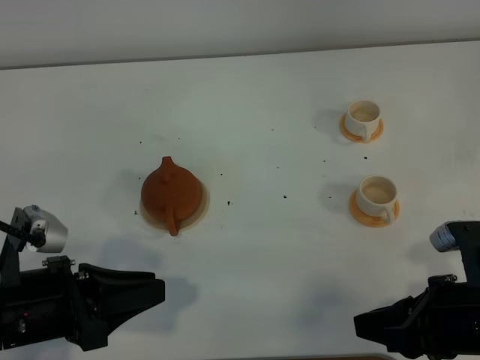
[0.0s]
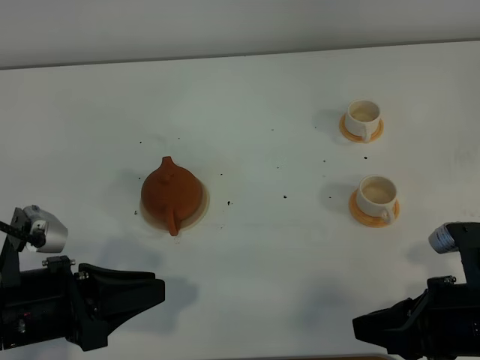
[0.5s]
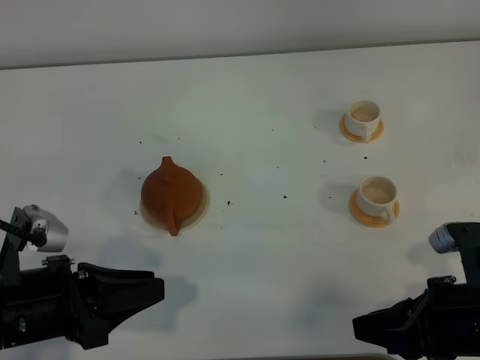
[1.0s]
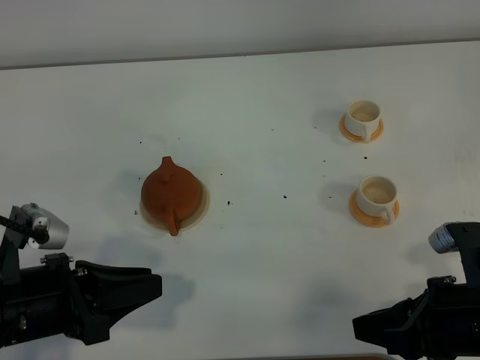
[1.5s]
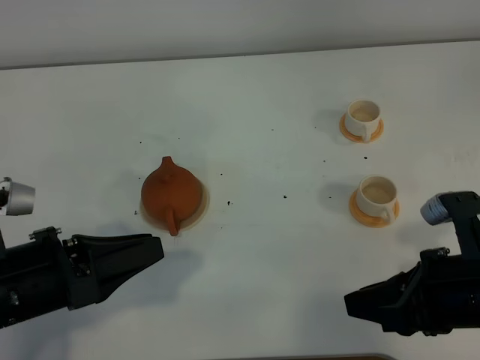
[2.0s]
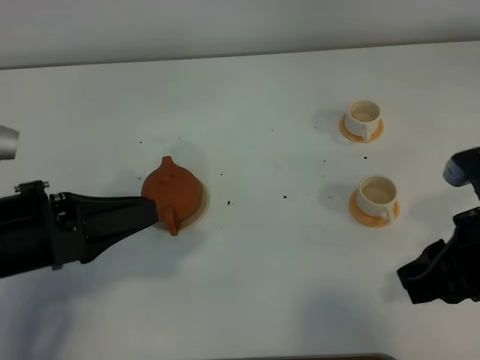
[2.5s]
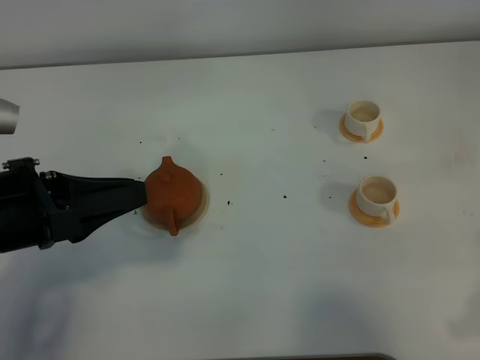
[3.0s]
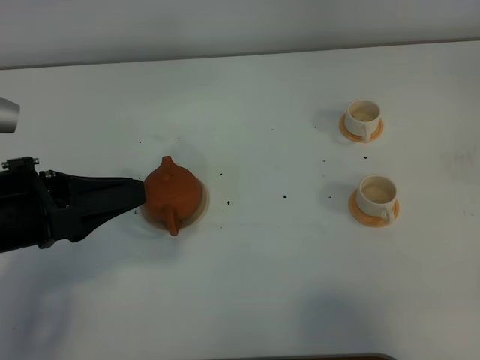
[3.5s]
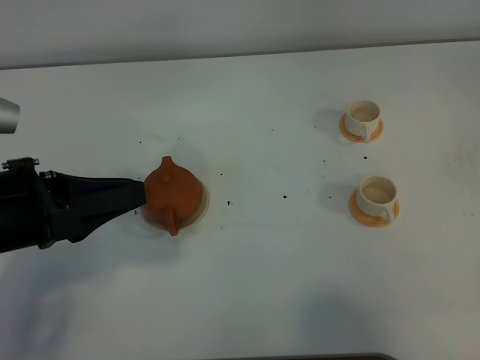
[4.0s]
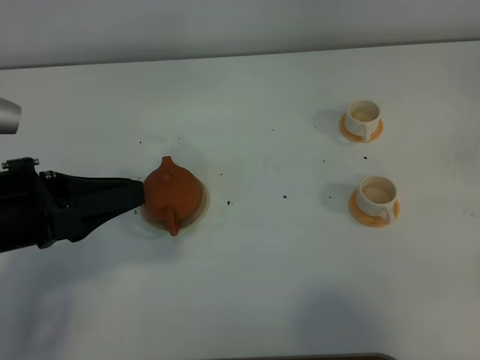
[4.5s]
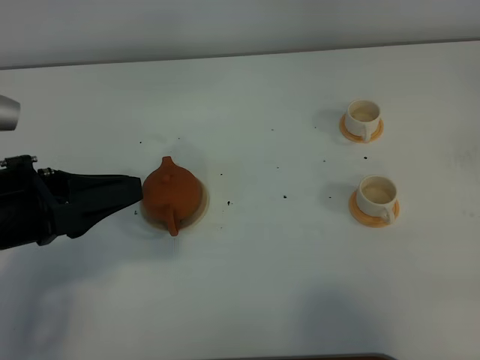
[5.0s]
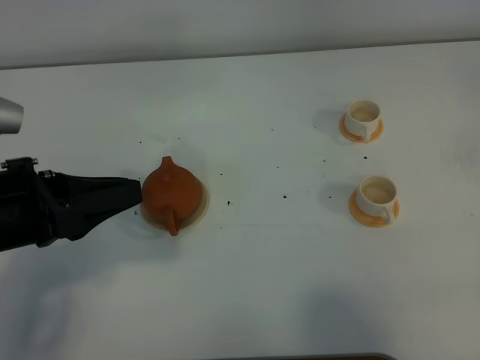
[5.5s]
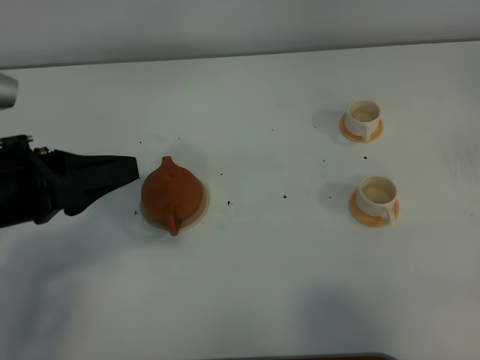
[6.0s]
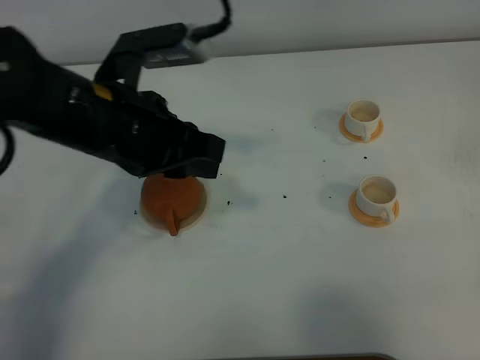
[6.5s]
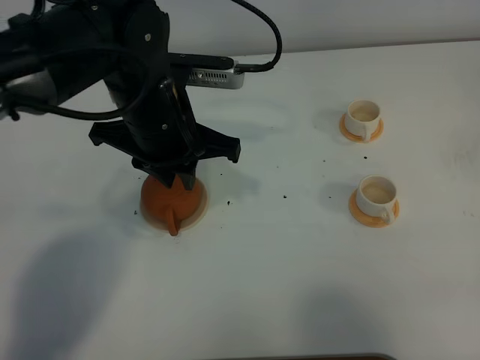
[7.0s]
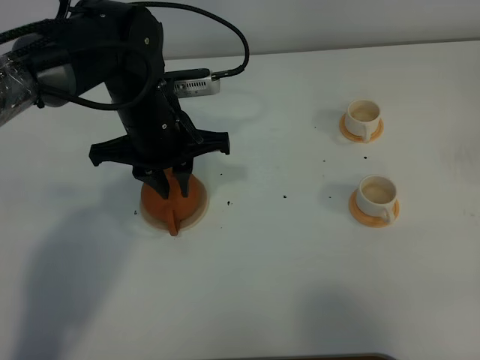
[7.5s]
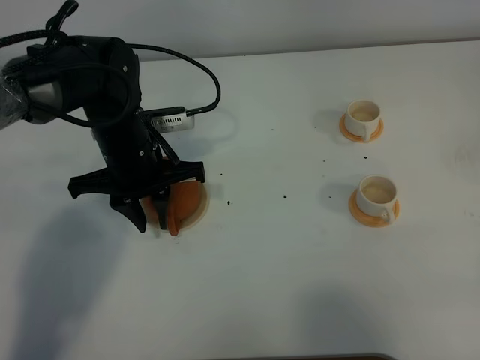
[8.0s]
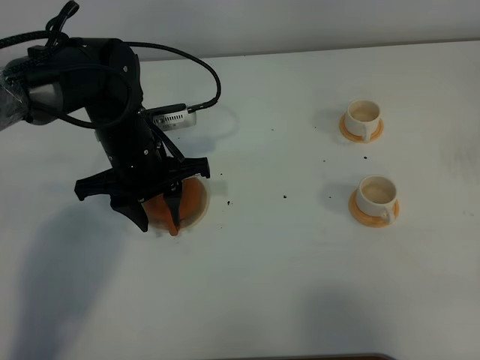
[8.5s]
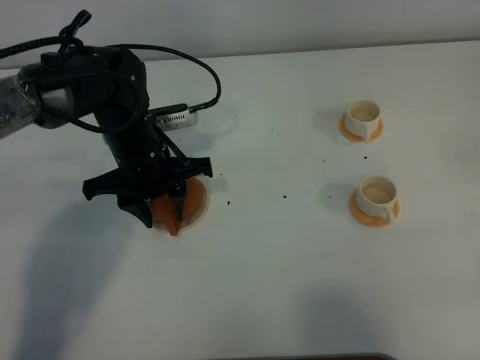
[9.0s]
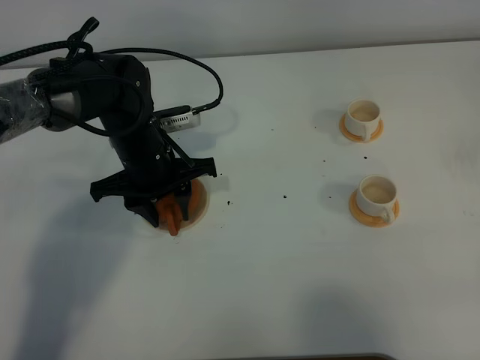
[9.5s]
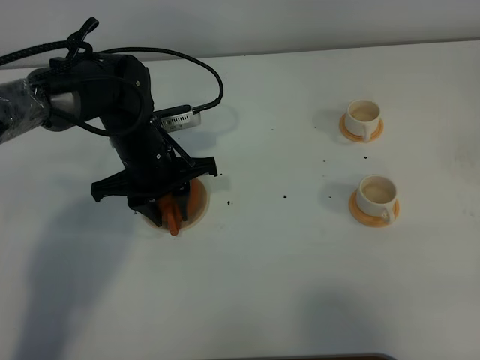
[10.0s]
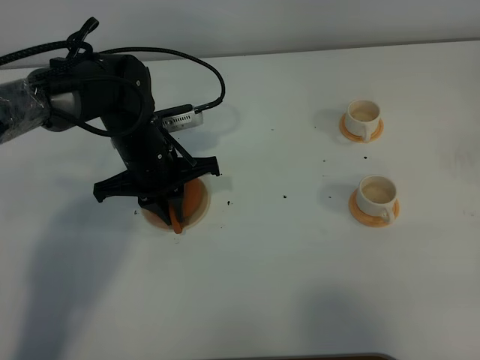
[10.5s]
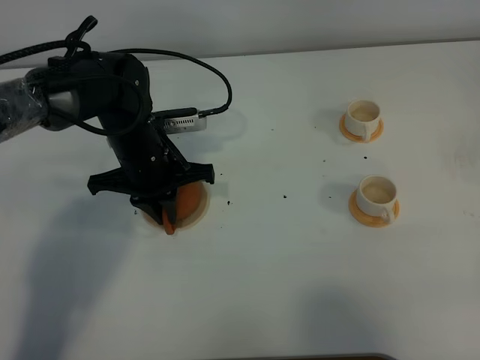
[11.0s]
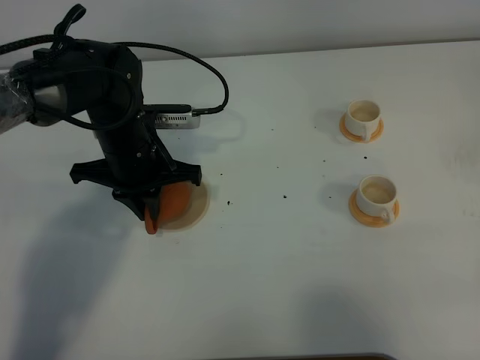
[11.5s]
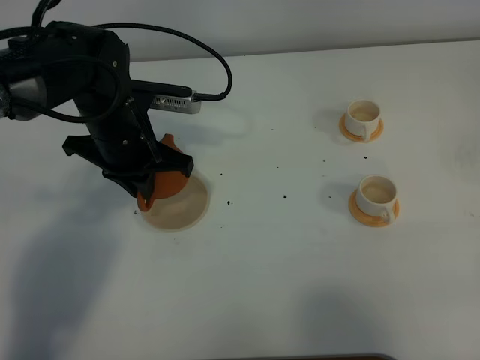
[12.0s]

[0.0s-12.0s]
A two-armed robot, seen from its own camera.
Task of the whole recording: grasp the brown teapot and pour the tea into the two white teacups one by one, put the brown teapot back in its original place.
Step, 0.0s to 11.5s: Pick up the teapot with the left gripper.
0.0s to 2.0s: The grippers stay close to where they were, moving slightly.
2.0s to 4.0s: The right gripper heads to the right, backward and upward, covering approximately 15 cm, and closes up, while the left gripper moves upward, approximately 5 cm.
6.0s to 8.0s: The left gripper goes approximately 20 cm forward, downward and to the right.
8.0s to 10.0s: There are only small adjustments of the grippers.
10.0s to 12.0s: The left gripper moves upward, roughly 5 cm, and closes.

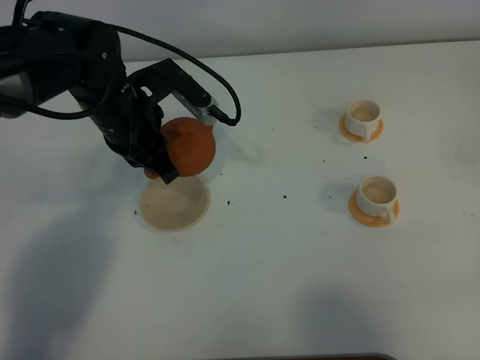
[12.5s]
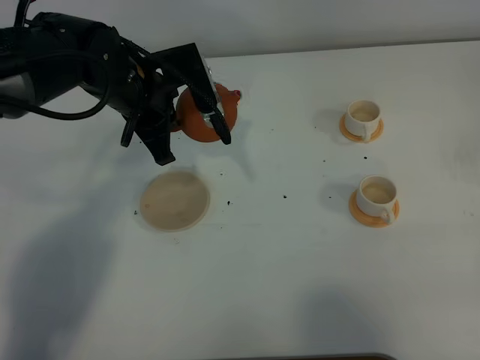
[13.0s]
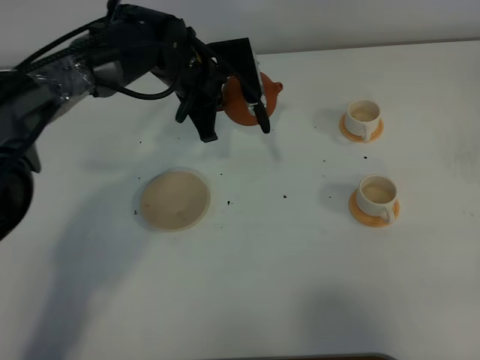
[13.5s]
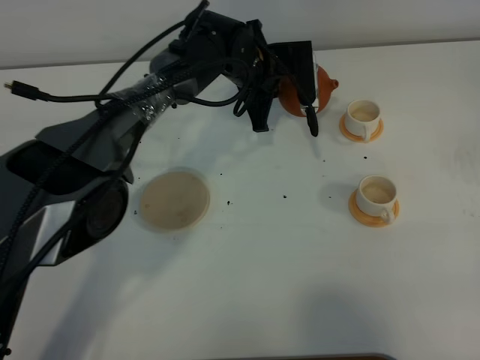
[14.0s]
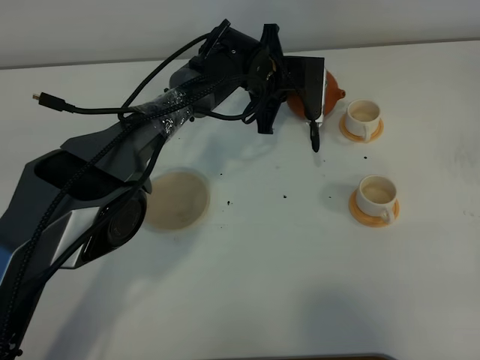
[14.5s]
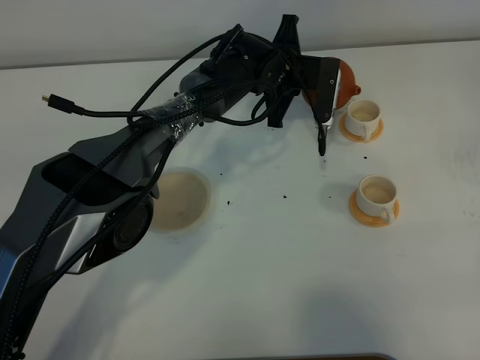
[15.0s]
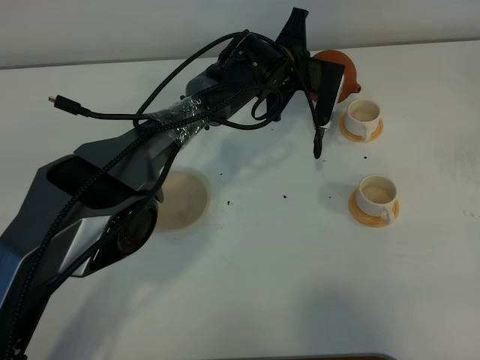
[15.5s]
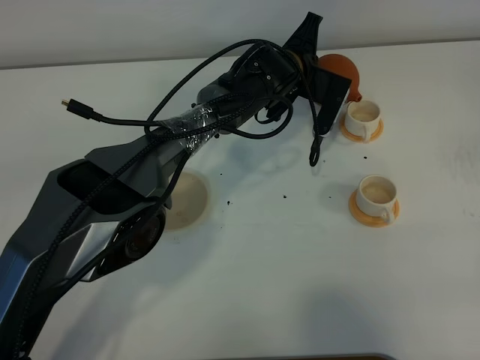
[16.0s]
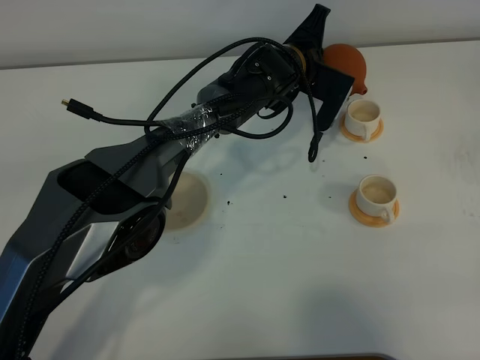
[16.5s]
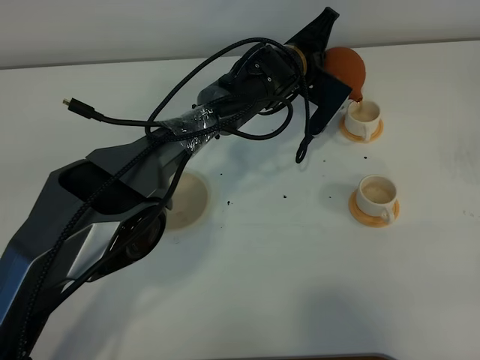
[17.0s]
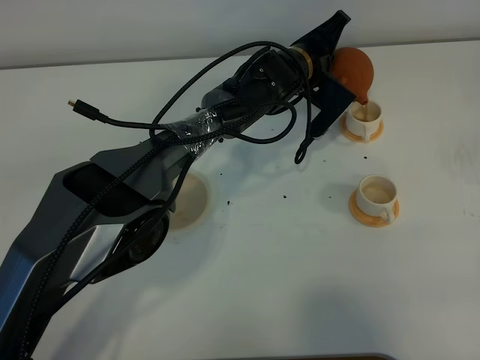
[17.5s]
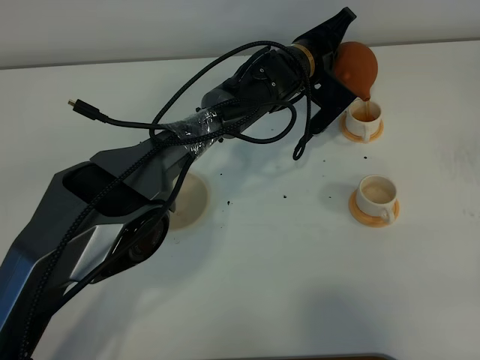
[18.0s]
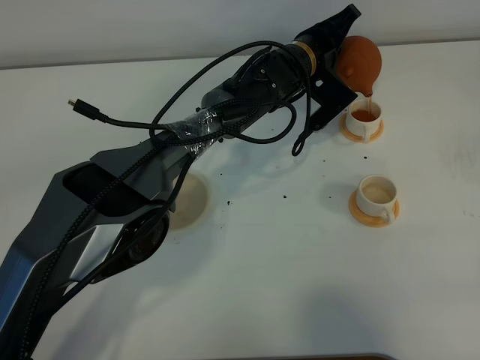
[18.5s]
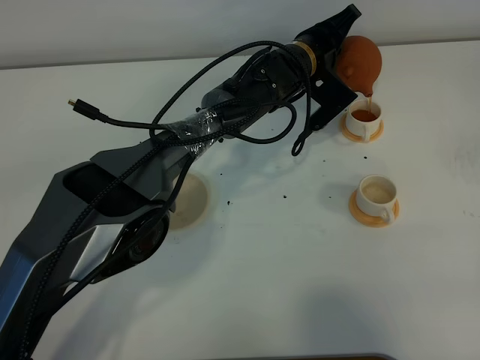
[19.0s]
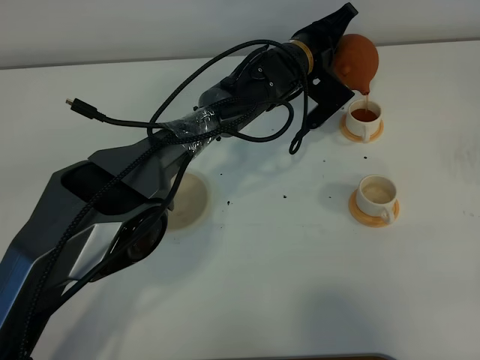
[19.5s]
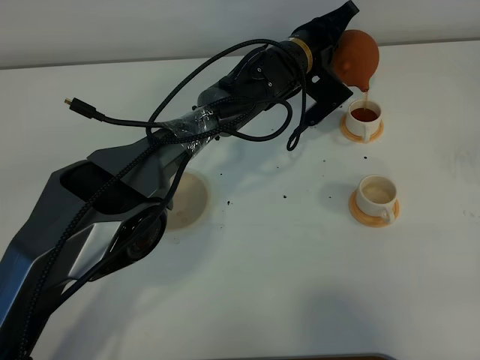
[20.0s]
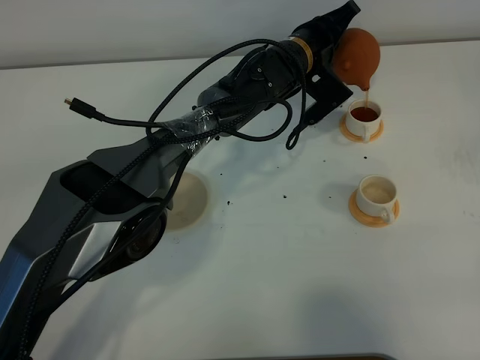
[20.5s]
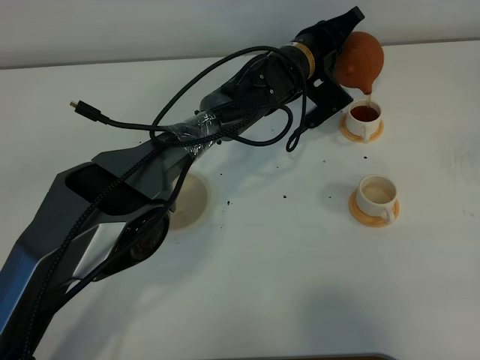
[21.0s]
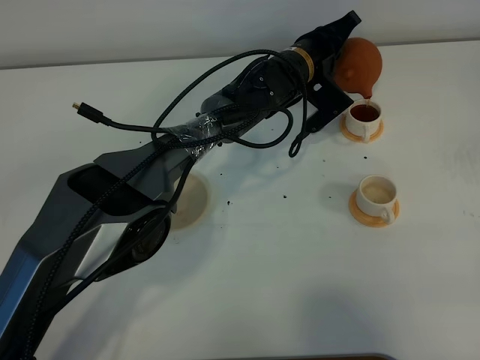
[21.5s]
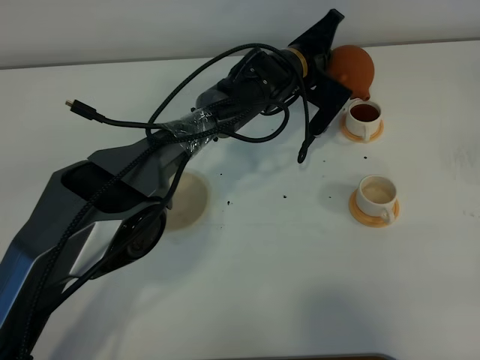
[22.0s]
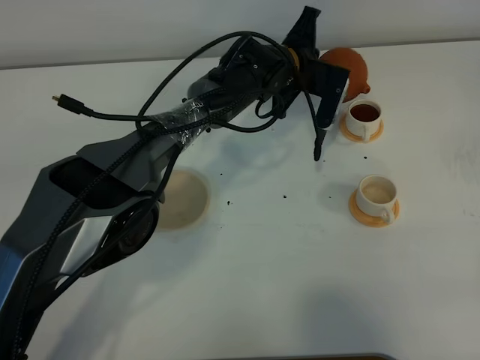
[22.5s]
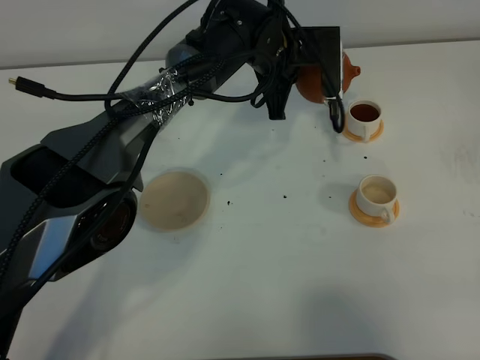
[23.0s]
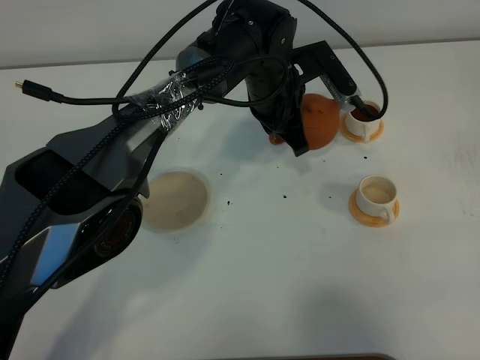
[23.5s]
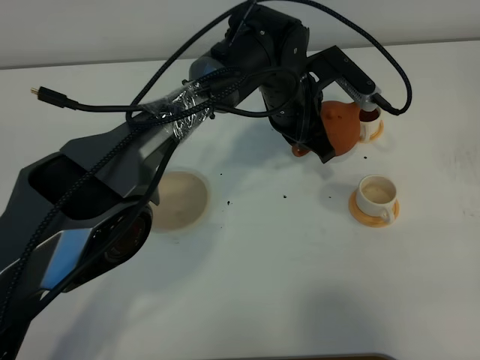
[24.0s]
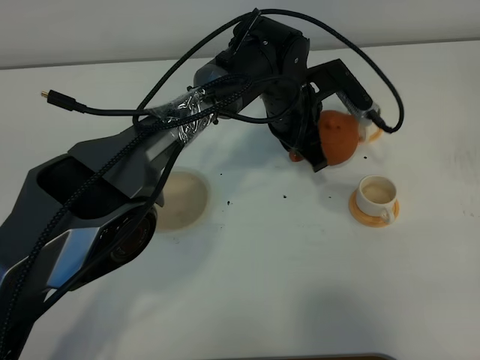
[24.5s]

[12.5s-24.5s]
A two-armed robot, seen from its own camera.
Task of the whole recording: grasp the brown teapot and pour the tea into the two white teacups one by one, put the brown teapot back in its original place.
12.5s to 14.5s: The left gripper is displaced to the right, forward and downward by approximately 20 cm.
18.5s to 20.5s: Neither gripper changes place.
22.5s to 24.5s: The left gripper heads backward, covering about 5 cm.

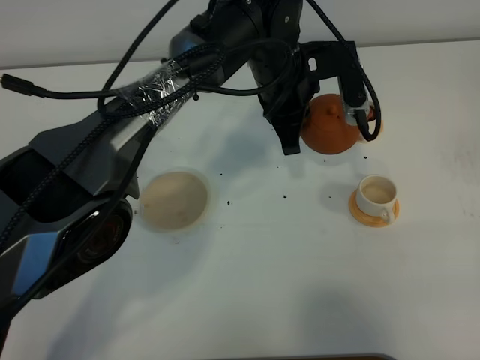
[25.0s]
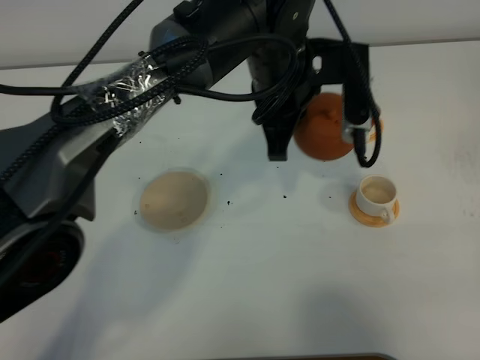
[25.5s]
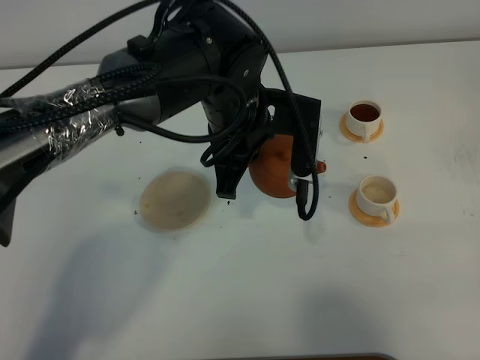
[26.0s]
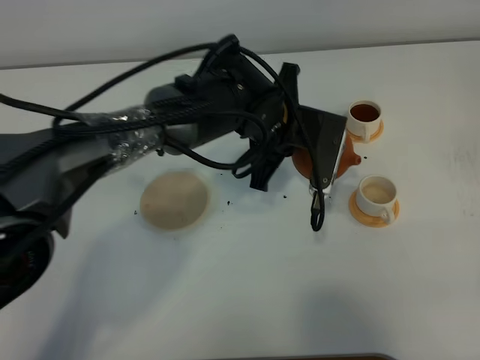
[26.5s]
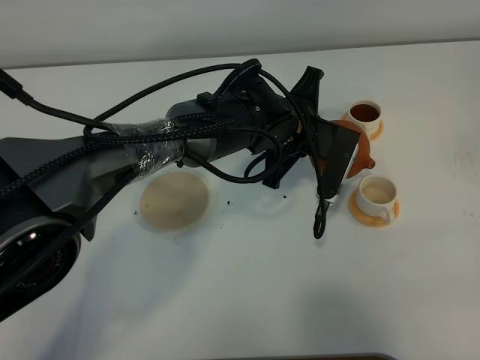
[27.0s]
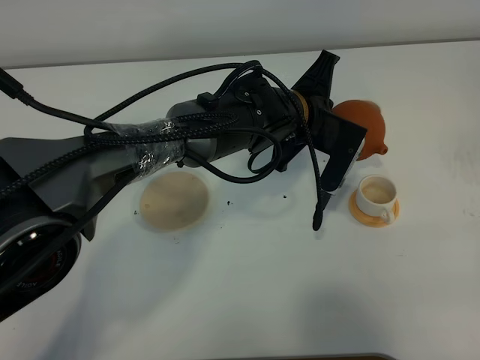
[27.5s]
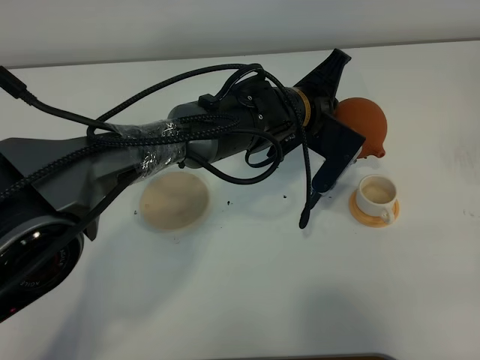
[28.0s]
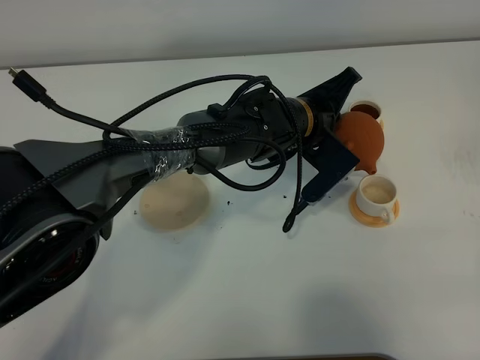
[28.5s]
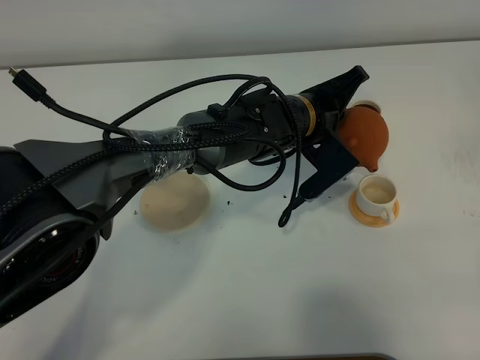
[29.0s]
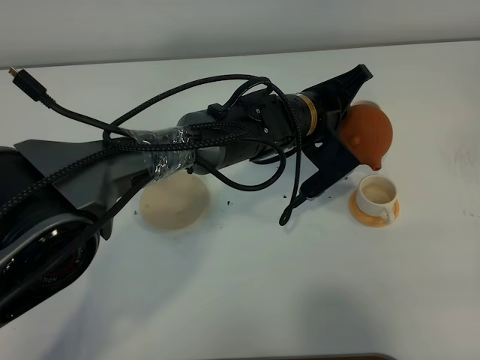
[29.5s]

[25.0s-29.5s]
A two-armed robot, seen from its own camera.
Task of the whole recording: grasp the brown teapot and pour the tea into the two white teacups one by one, put the brown teapot back in its original place.
25.0s to 27.0s: The left gripper moves downward, roughly 5 cm.
